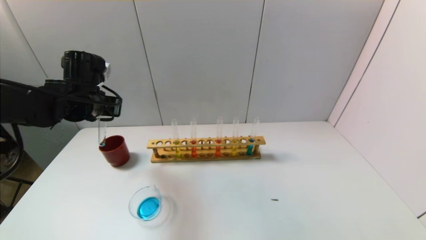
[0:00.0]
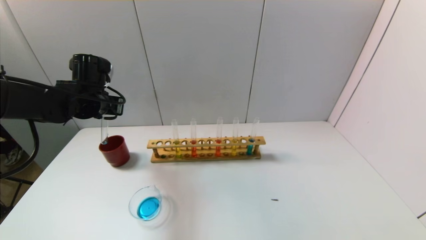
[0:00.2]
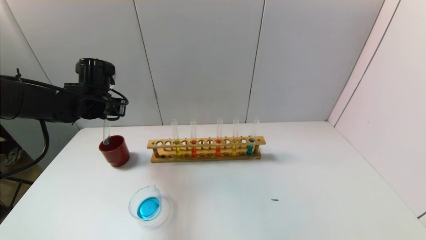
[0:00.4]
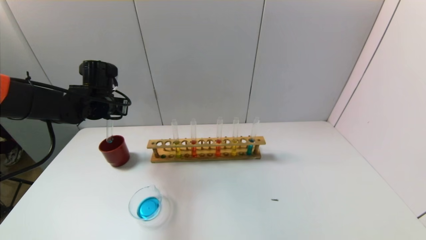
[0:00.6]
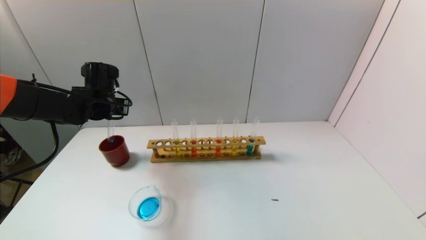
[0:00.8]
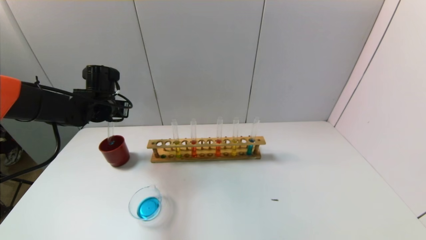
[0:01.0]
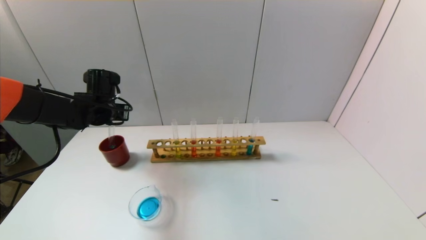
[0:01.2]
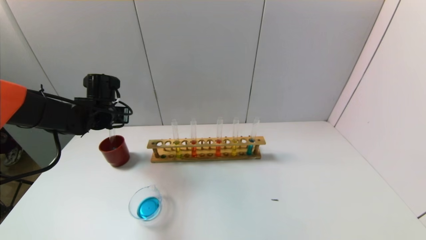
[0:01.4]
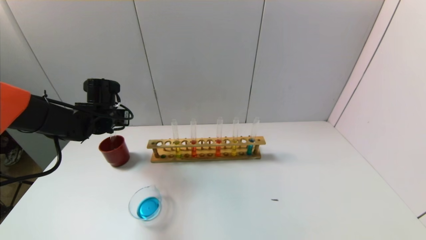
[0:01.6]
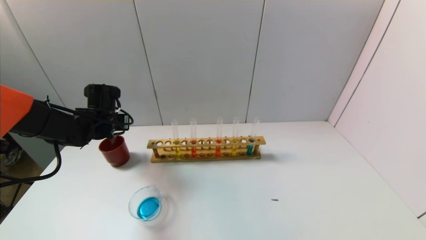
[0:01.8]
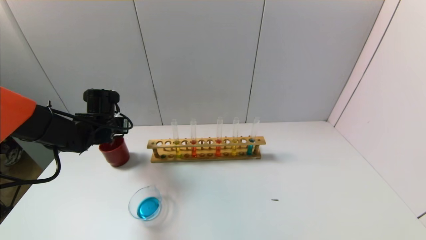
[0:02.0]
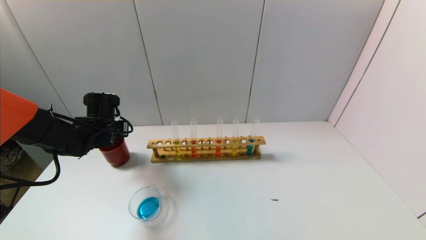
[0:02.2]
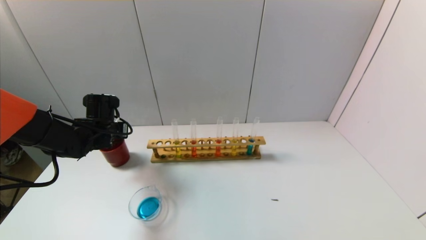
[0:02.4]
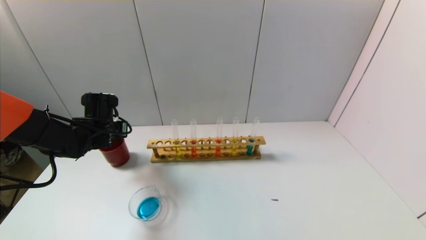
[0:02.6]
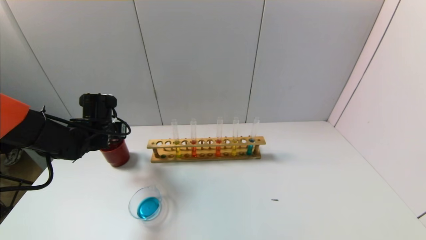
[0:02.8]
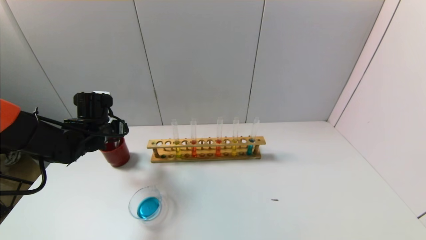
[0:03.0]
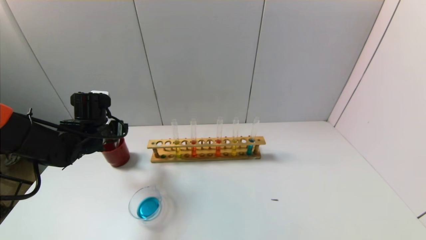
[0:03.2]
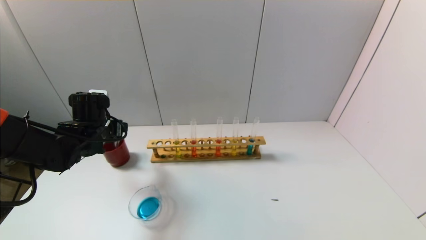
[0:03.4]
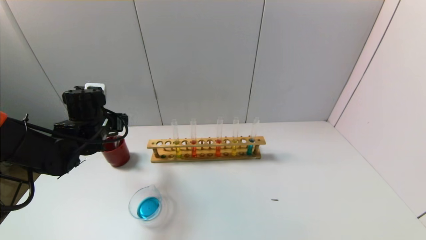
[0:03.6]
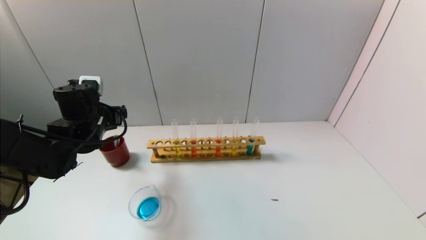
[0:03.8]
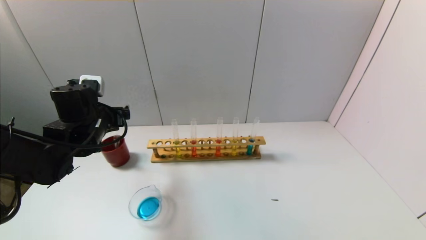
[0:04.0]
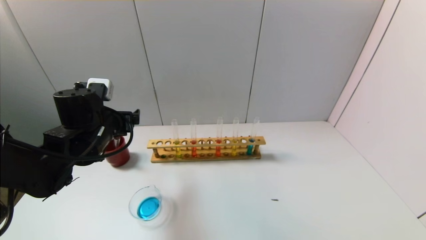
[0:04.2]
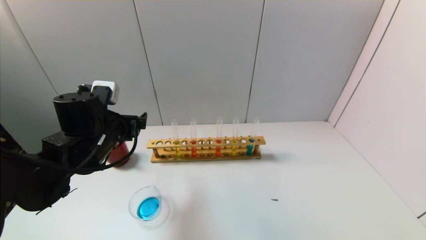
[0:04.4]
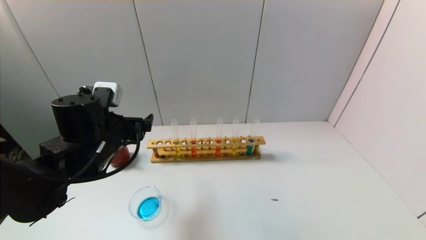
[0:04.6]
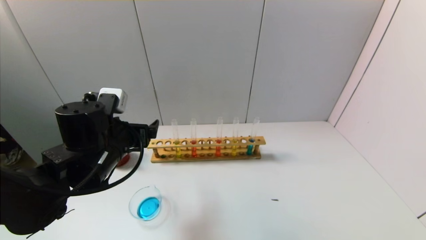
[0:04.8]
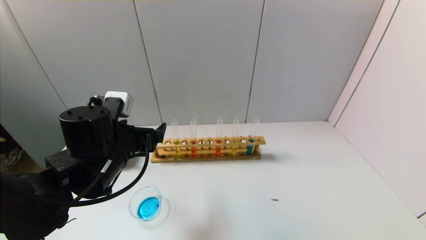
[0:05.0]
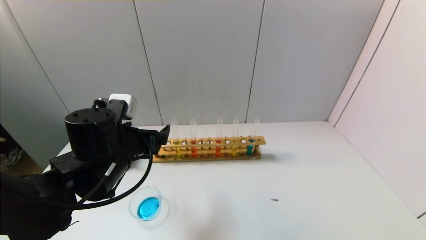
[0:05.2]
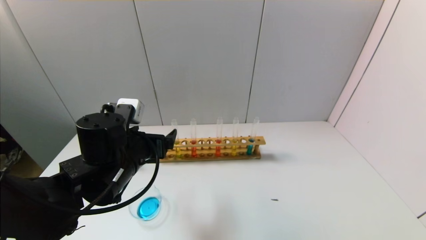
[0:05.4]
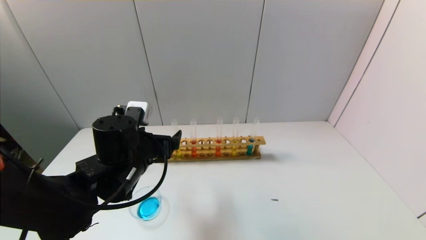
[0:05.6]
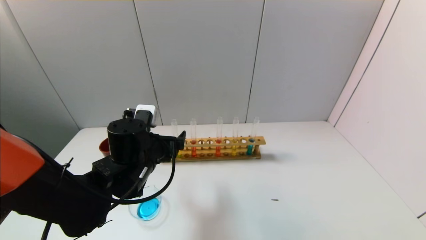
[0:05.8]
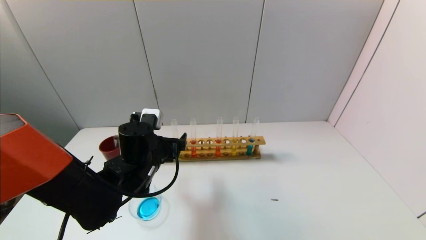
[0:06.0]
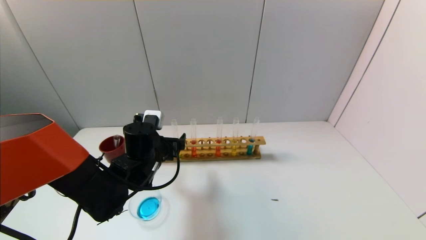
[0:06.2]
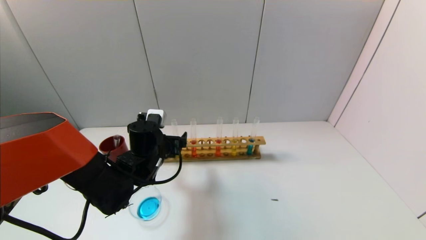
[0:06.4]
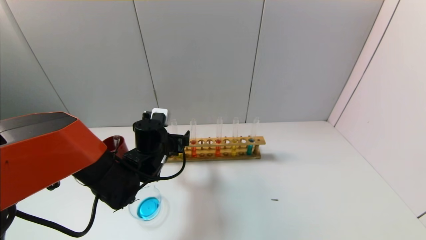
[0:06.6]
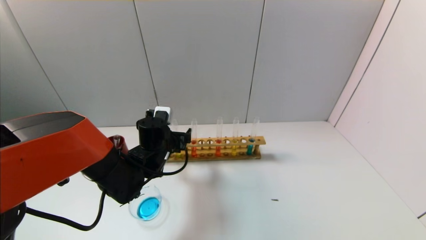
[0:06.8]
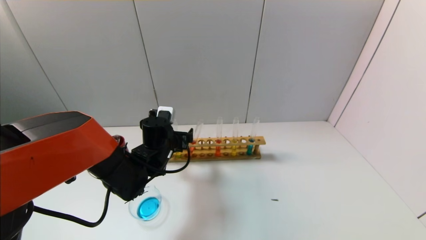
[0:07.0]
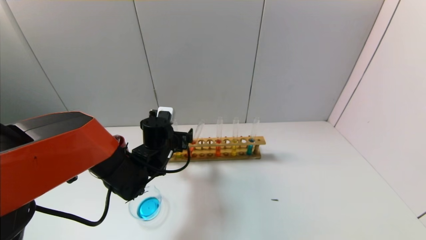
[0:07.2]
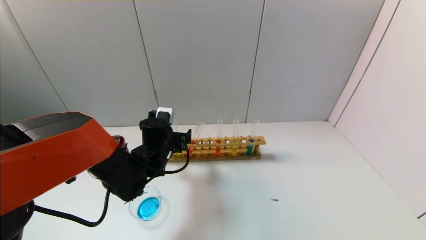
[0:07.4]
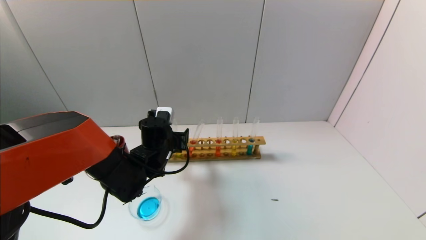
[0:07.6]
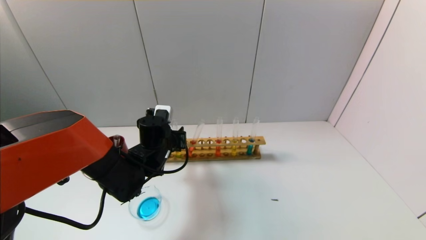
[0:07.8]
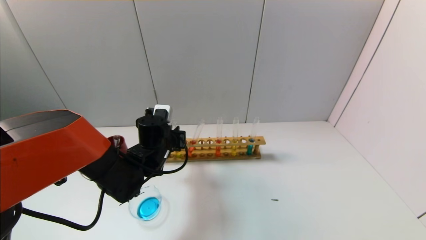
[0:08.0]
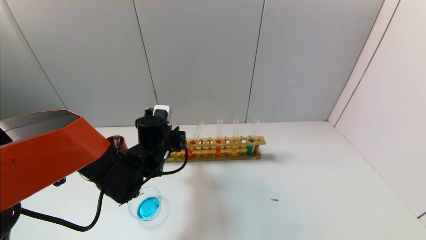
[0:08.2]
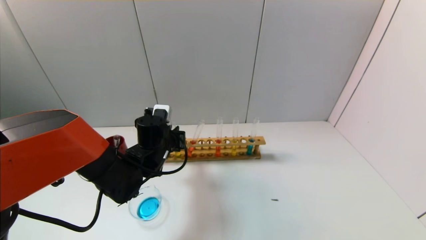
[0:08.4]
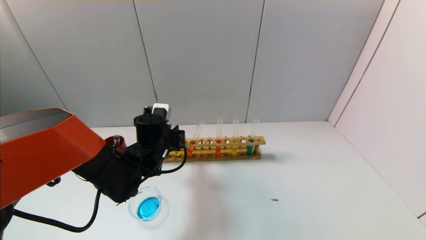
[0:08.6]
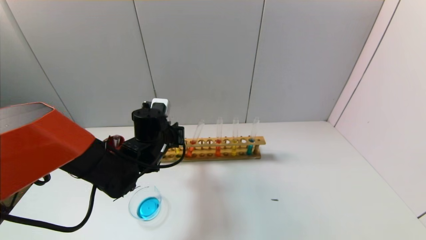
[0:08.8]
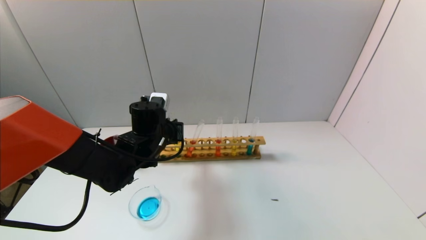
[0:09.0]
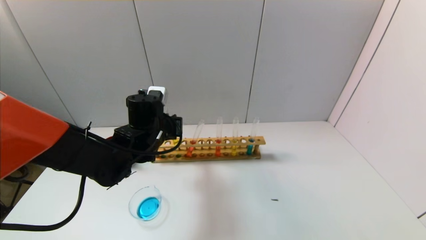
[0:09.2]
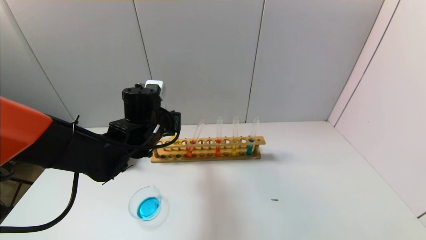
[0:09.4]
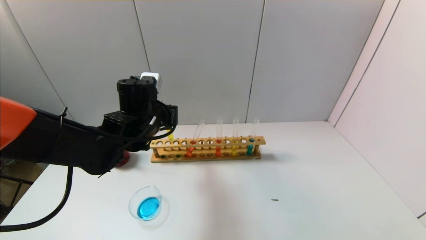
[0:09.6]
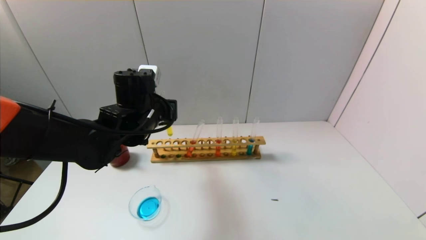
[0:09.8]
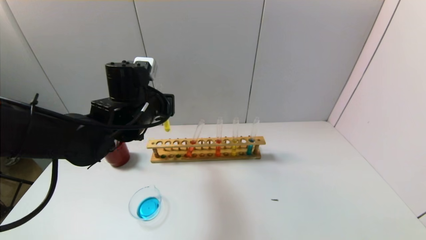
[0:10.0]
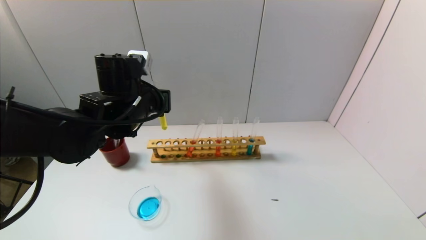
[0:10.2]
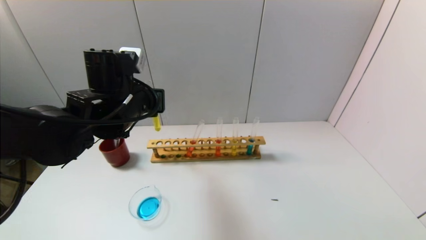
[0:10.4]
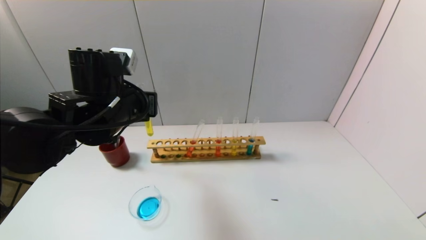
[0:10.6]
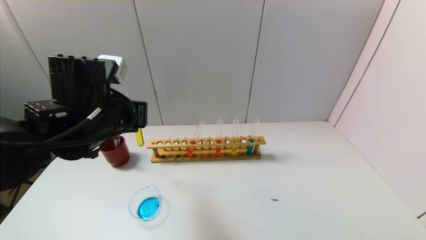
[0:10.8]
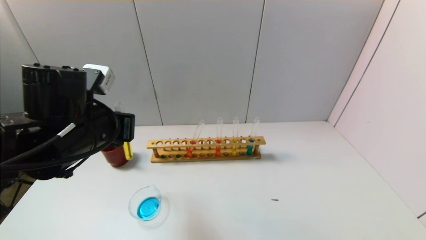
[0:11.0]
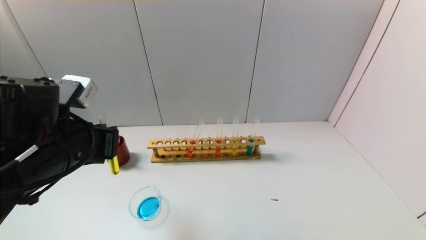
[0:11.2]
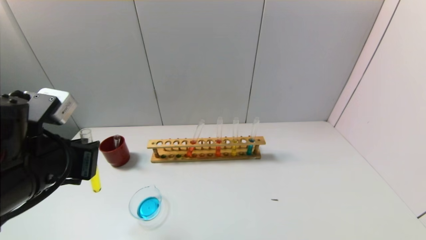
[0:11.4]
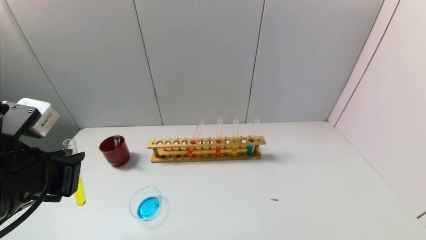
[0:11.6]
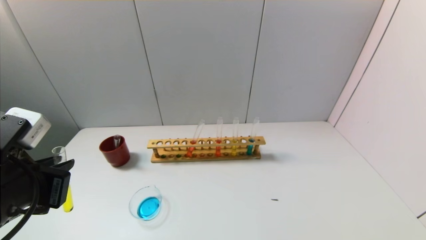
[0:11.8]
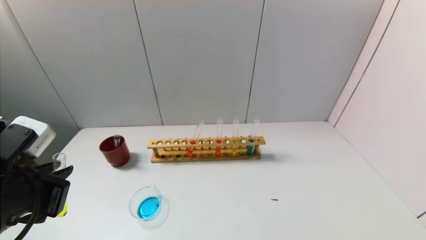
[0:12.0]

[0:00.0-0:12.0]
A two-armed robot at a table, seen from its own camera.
Task of the whole recording: pick up the test tube with yellow pigment and the test tube with blue pigment by grippers and pour them into the beaker.
Step, 0:00.0 to 0:03.0: Place the test tube into the brown cup with the left gripper.
Step, 0:03.2 to 0:08.4: Grasp the yellow reagent with the left gripper.
0:00.0 to 0:01.6: The left gripper shifts roughly 5 cm downward.
0:01.6 to 0:03.0: The left gripper opens.
0:03.0 to 0:04.4: The left gripper moves backward and to the right, some 10 cm.
0:04.4 to 0:06.0: The left gripper is displaced to the right and downward by roughly 10 cm.
0:06.0 to 0:07.6: The left gripper is displaced forward by some 5 cm.
0:07.6 to 0:09.0: The left gripper closes.
0:09.0 to 0:10.4: The left gripper shifts roughly 10 cm upward.
0:10.4 to 0:12.0: The left gripper moves backward and to the left, about 20 cm.

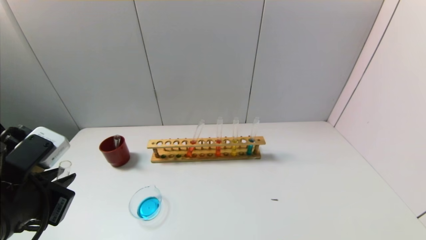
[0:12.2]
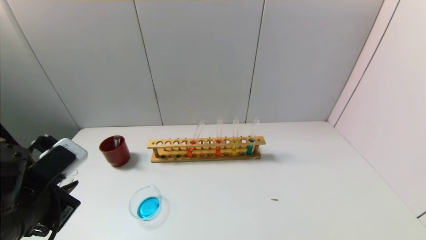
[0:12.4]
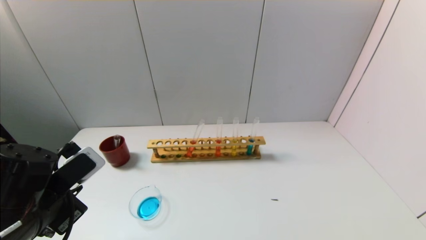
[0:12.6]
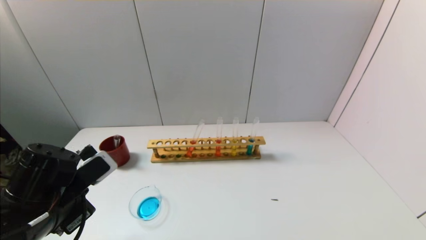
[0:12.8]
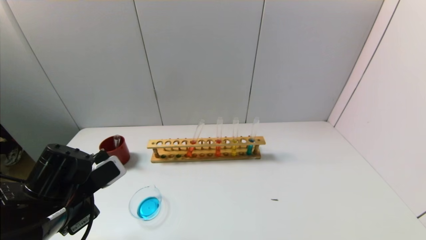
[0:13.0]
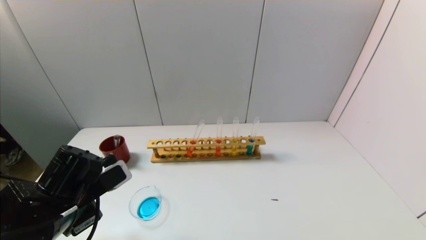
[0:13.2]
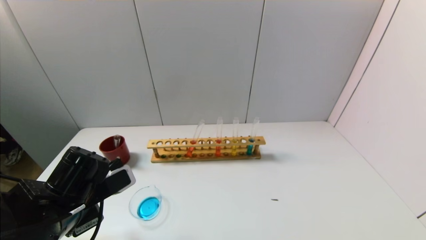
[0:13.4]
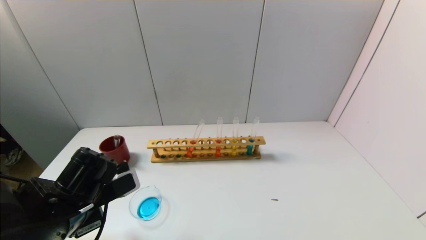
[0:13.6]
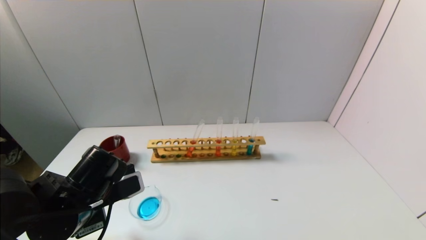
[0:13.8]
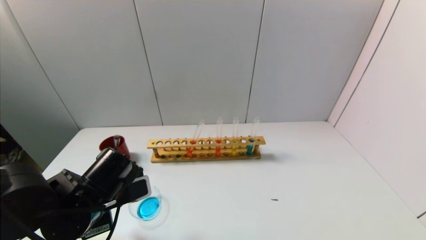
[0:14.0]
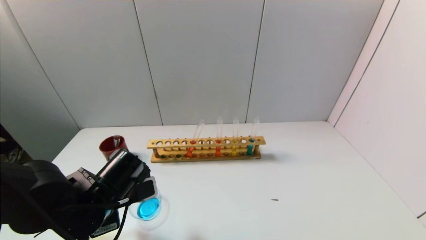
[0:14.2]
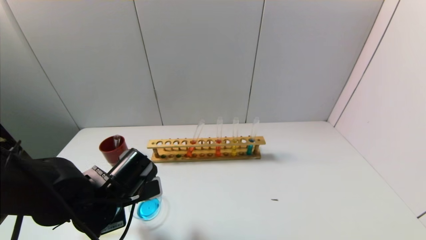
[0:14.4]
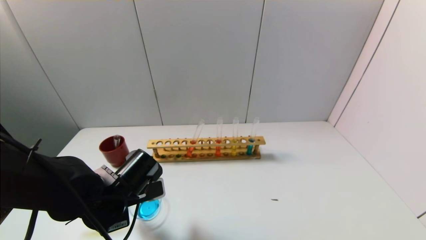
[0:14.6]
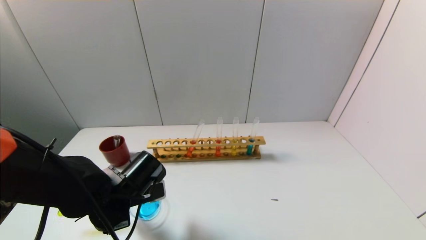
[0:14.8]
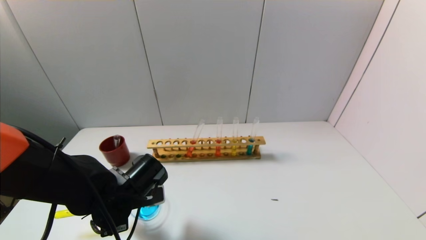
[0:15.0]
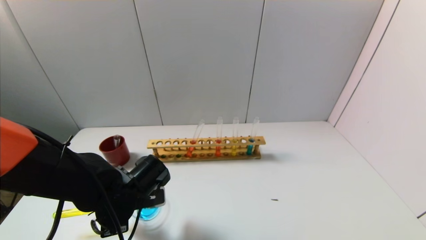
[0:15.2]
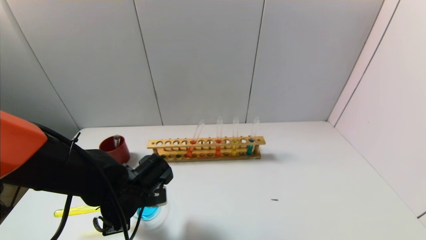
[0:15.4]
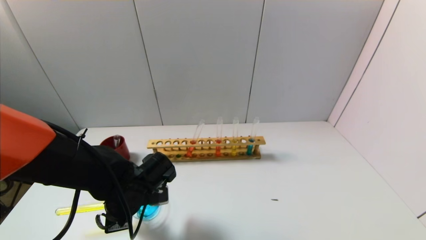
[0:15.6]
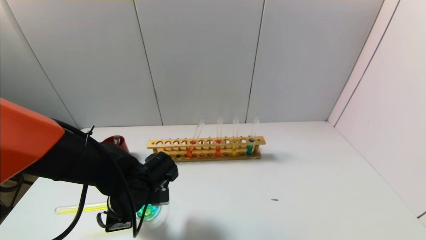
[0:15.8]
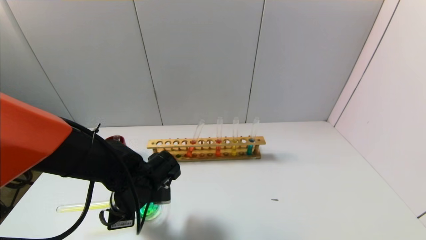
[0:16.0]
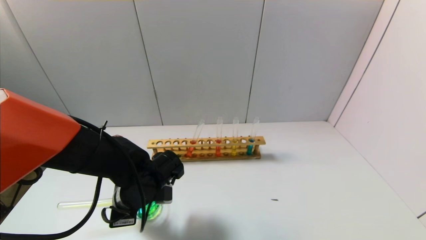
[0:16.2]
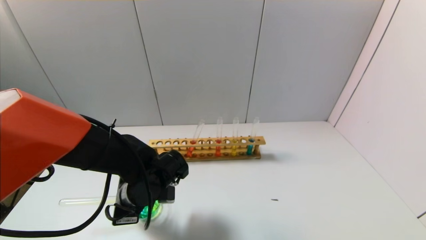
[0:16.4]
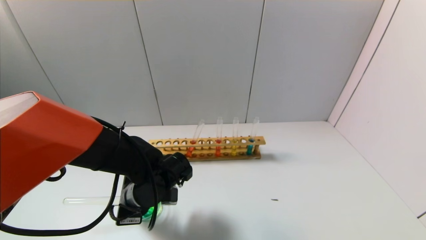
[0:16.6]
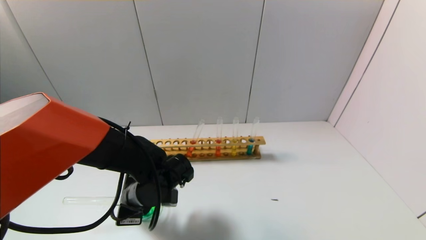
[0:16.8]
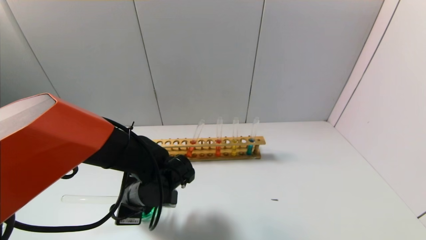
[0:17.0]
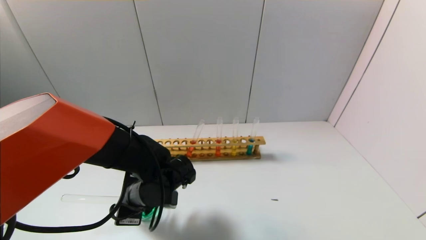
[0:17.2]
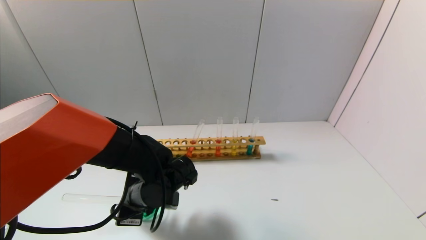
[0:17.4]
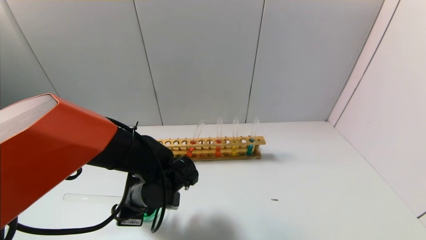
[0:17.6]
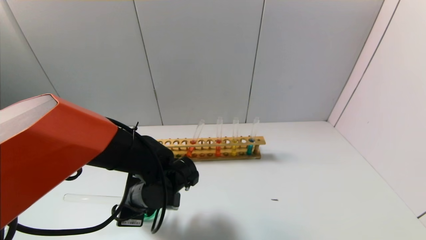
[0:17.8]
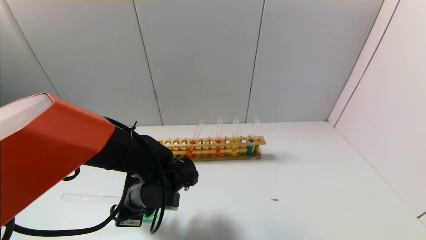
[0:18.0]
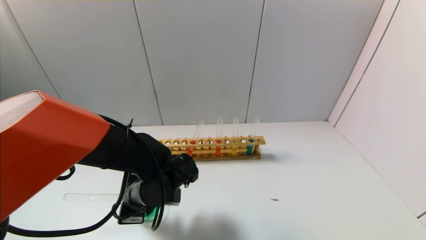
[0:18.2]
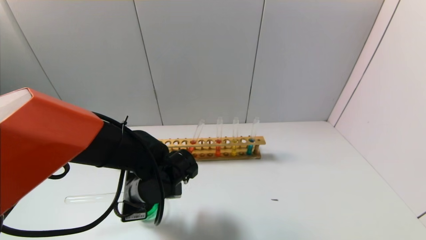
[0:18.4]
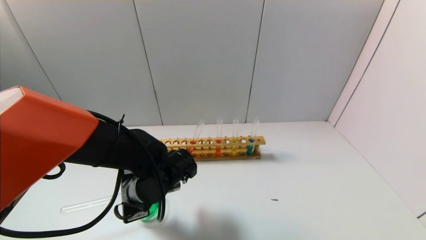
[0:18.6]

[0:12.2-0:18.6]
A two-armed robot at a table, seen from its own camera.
Task of the whole recording: pick up the test tube with yellow pigment and the test tube with blue pigment by grippers and pour them into the beaker.
Step, 0:12.2 to 0:18.4: Pour the yellow reagent into the graduated cylinder with the left gripper.
0:12.2 to 0:13.8: The left gripper heads downward and forward, covering some 10 cm.
0:13.8 to 0:15.4: The left gripper moves about 10 cm.
0:15.4 to 0:18.6: The grippers move only a little.
